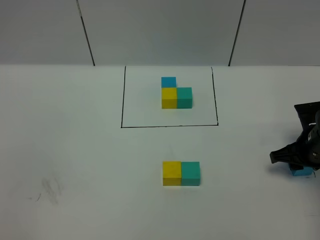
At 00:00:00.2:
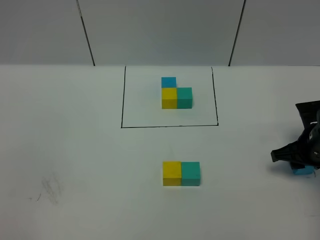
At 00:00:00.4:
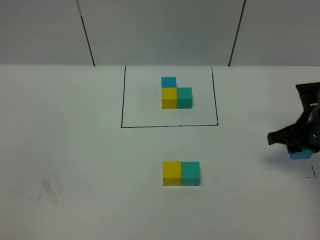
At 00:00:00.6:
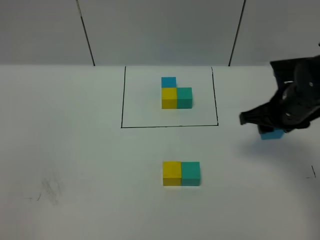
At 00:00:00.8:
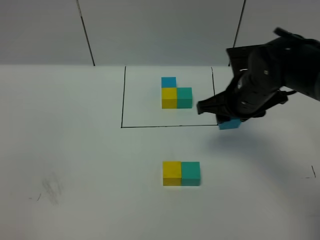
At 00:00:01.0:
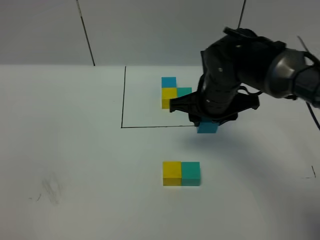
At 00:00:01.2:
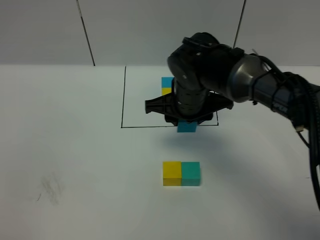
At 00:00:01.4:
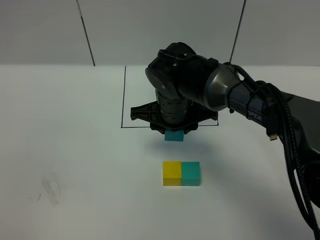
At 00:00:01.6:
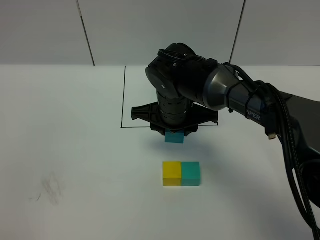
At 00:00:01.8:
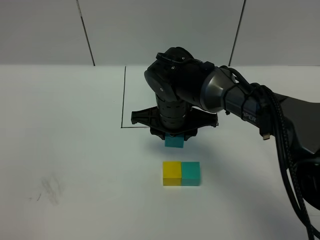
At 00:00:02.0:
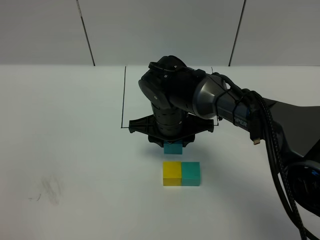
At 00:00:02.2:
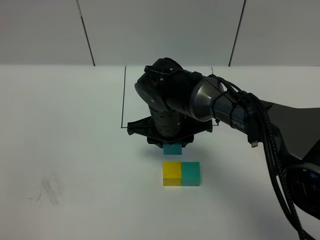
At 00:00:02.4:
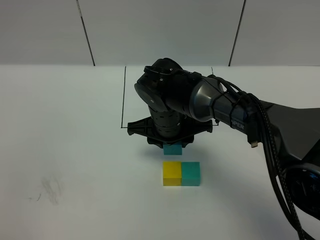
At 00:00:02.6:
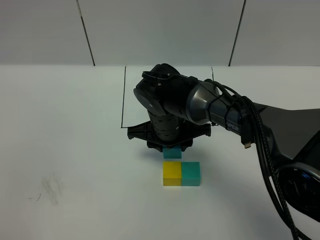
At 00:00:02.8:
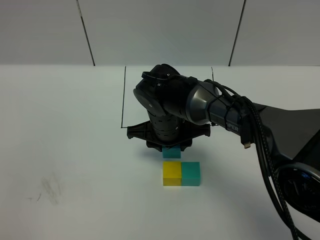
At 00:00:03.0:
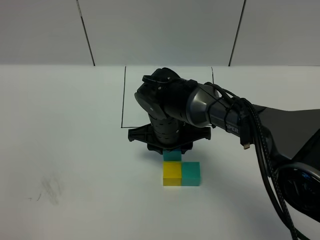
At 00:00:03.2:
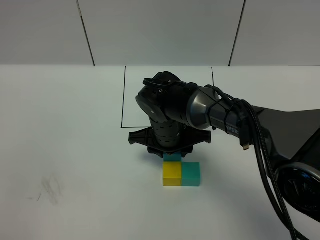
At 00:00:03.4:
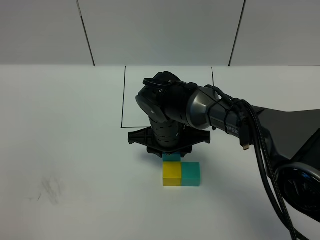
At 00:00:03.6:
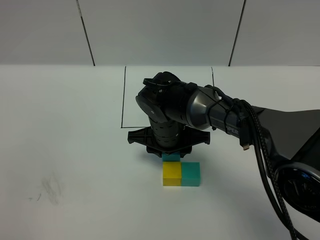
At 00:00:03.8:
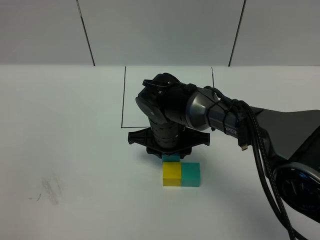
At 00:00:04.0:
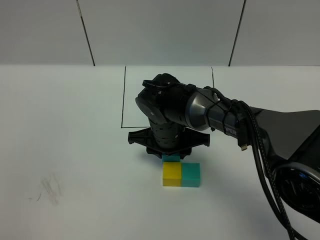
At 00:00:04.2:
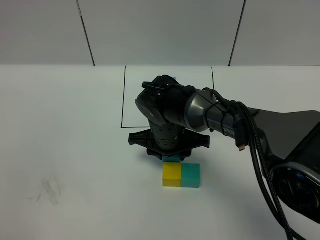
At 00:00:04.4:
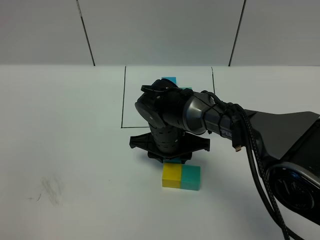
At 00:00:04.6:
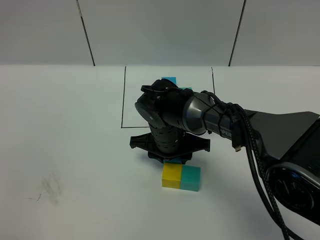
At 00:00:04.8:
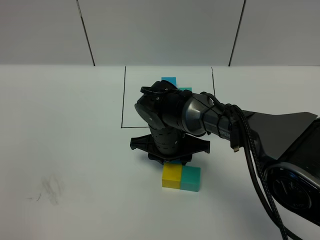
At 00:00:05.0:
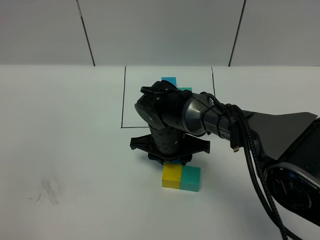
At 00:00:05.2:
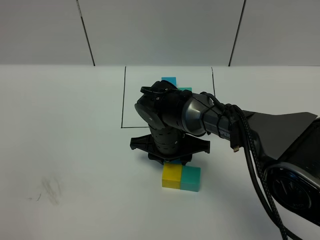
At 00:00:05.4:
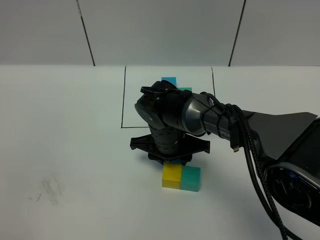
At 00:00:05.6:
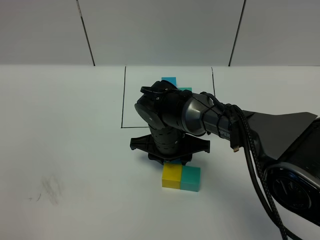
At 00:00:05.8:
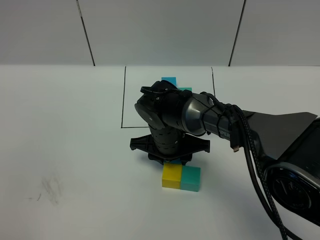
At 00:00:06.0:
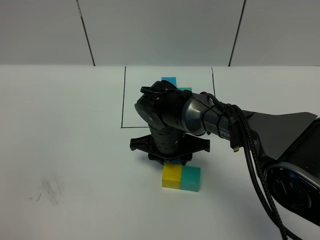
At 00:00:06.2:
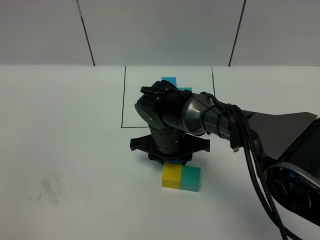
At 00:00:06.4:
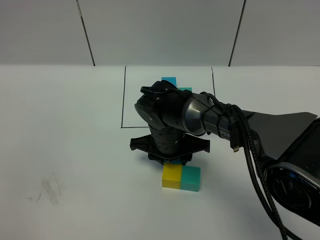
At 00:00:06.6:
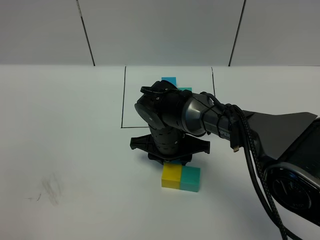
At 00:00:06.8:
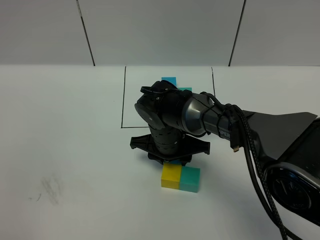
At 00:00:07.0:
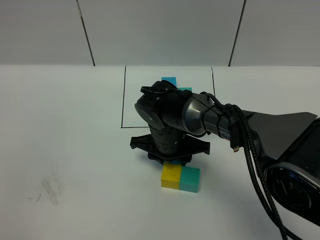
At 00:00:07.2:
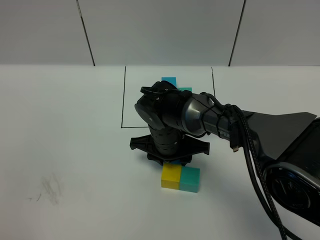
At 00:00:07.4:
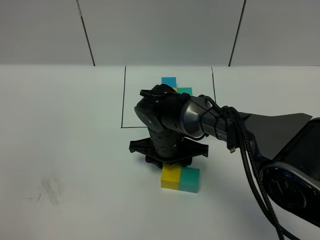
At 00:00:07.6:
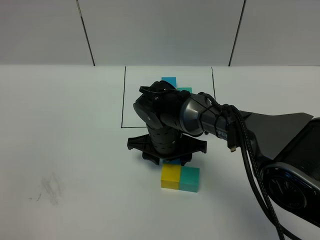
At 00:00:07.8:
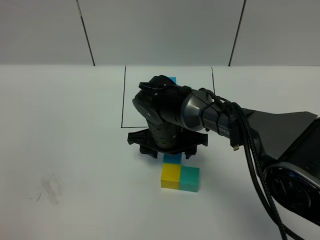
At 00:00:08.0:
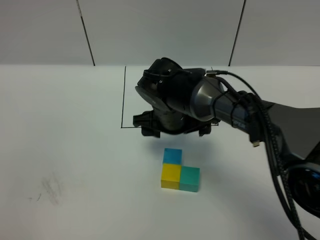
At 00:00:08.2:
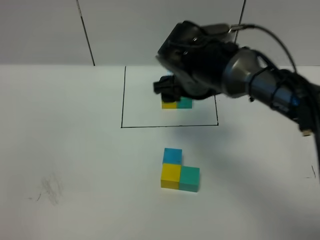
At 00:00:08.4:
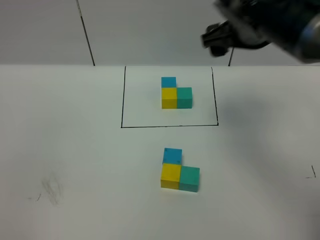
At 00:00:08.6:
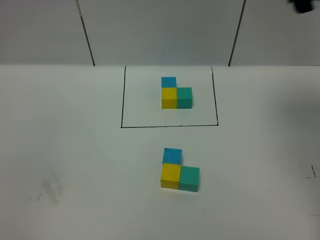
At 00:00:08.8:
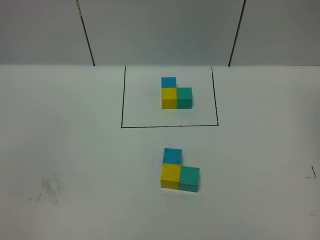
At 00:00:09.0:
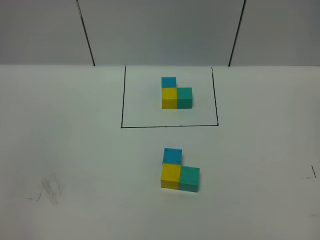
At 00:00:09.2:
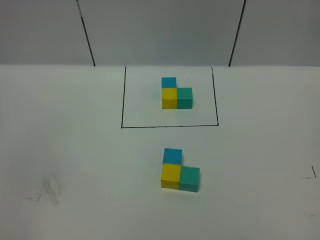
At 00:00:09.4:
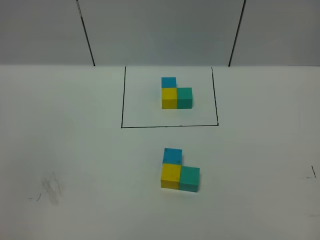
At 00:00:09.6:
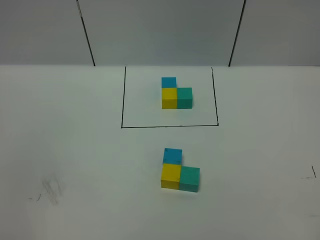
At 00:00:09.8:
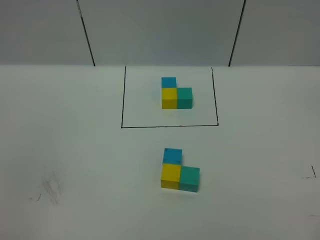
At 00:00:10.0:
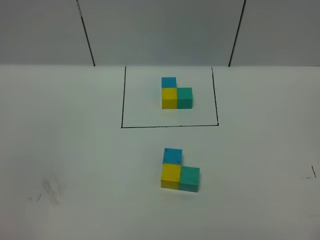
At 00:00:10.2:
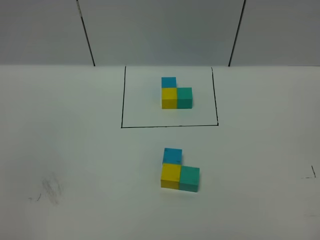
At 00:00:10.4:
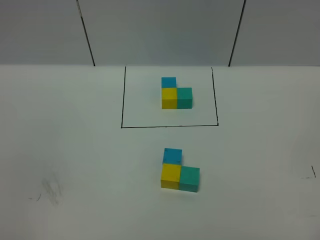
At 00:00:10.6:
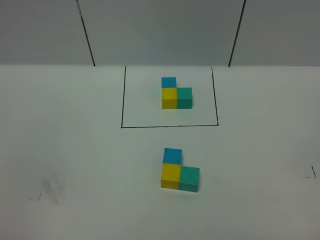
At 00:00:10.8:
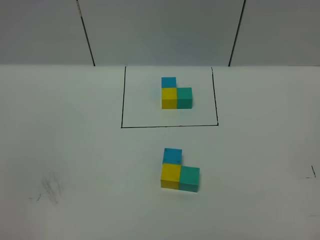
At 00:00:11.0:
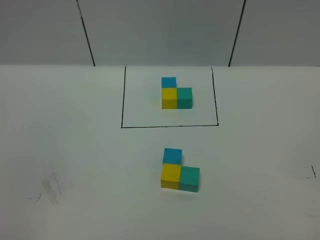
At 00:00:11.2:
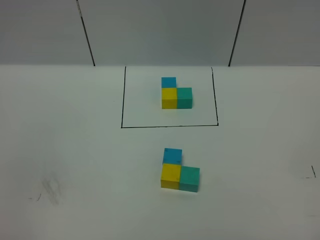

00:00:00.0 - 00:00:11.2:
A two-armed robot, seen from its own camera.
Task of the whole recording: According to the building block template in front, assemble the scattered blocks together.
Step, 00:00:00.0 - 00:00:07.8: Put the blue cube on the behind of the yellow cube.
00:00:00.0 - 00:00:01.6: The right gripper travels to the left by approximately 30 cm.
00:00:01.6 - 00:00:03.2: The right gripper ends up some 5 cm from where it was.
00:00:03.2 - 00:00:04.8: The grippers move only a little.
00:00:04.8 - 00:00:06.4: Both grippers stay about where they are.
00:00:06.4 - 00:00:08.0: The right gripper is displaced upward by roughly 5 cm, and opens up.
00:00:08.0 - 00:00:09.6: The right gripper shifts about 50 cm backward, to the right and upward.

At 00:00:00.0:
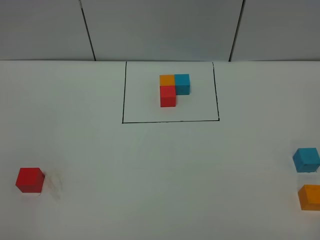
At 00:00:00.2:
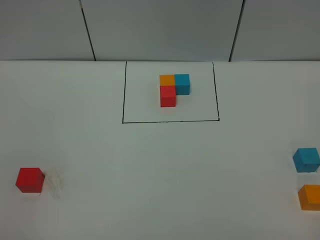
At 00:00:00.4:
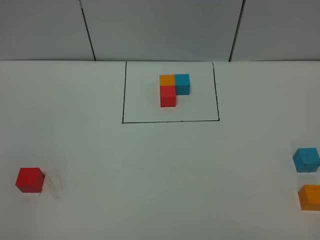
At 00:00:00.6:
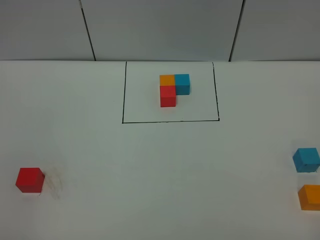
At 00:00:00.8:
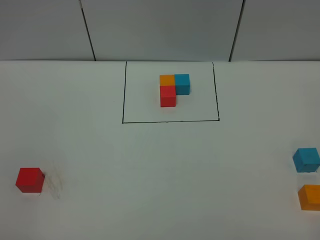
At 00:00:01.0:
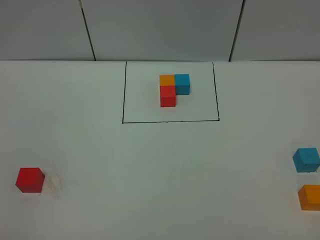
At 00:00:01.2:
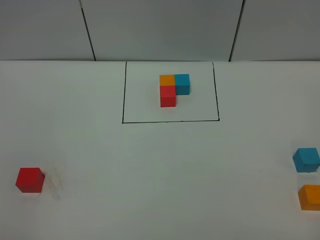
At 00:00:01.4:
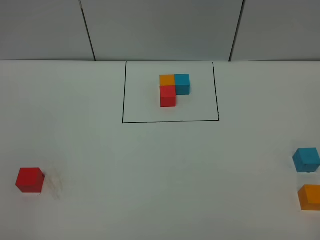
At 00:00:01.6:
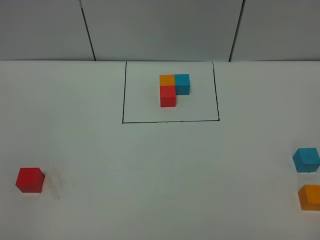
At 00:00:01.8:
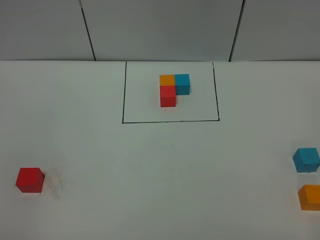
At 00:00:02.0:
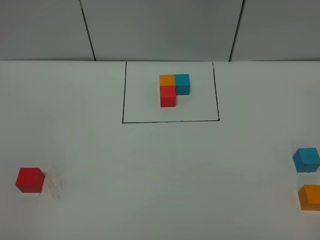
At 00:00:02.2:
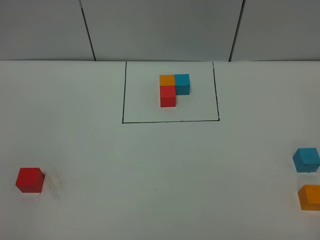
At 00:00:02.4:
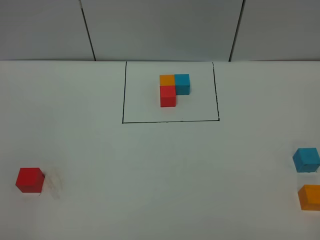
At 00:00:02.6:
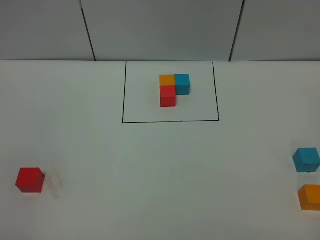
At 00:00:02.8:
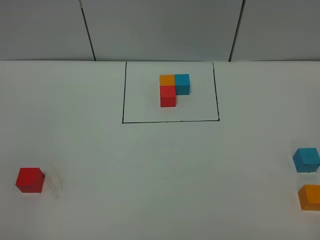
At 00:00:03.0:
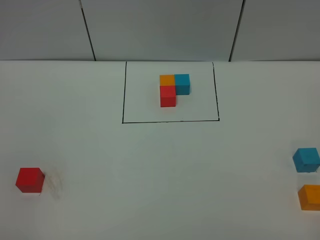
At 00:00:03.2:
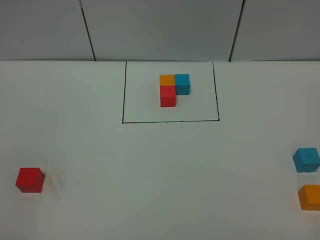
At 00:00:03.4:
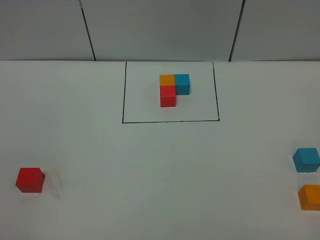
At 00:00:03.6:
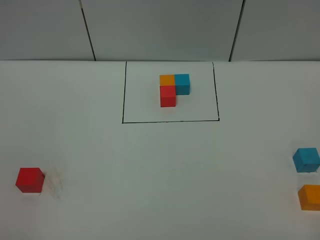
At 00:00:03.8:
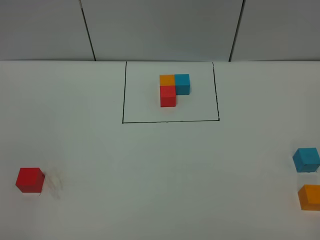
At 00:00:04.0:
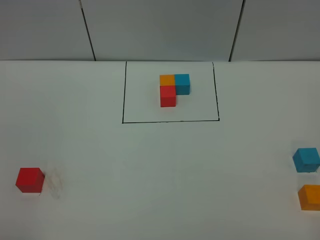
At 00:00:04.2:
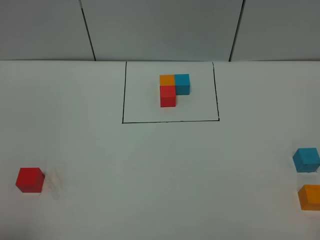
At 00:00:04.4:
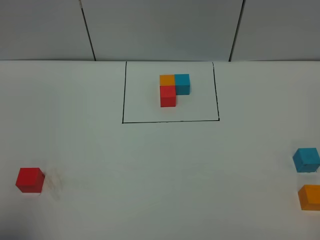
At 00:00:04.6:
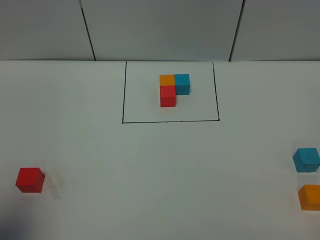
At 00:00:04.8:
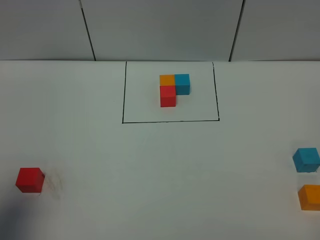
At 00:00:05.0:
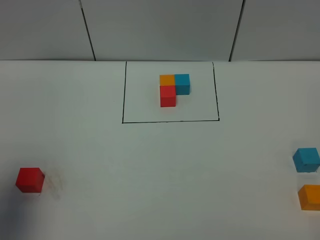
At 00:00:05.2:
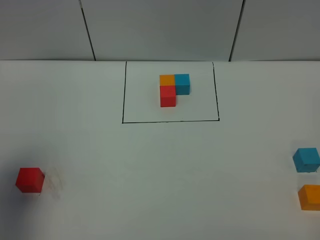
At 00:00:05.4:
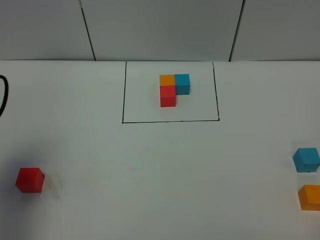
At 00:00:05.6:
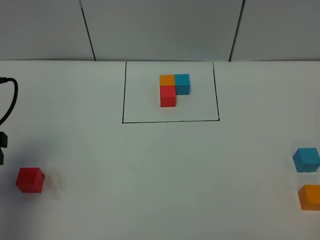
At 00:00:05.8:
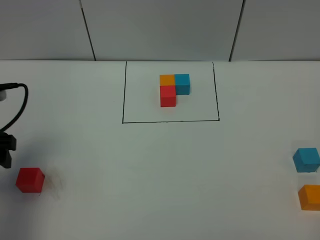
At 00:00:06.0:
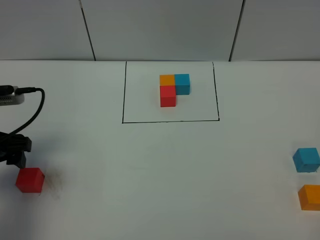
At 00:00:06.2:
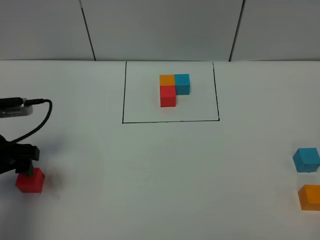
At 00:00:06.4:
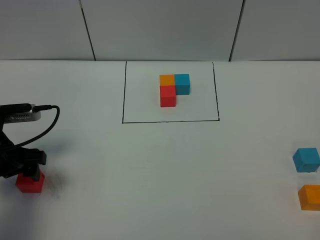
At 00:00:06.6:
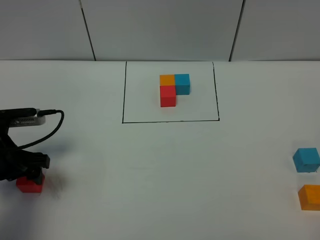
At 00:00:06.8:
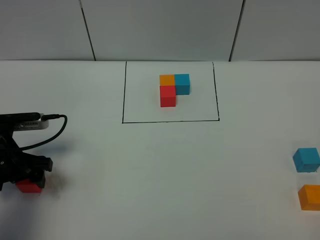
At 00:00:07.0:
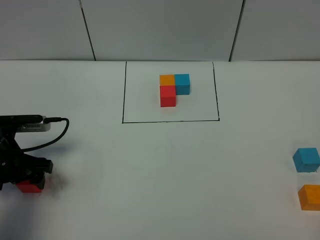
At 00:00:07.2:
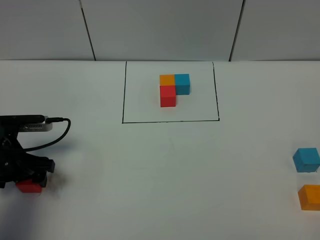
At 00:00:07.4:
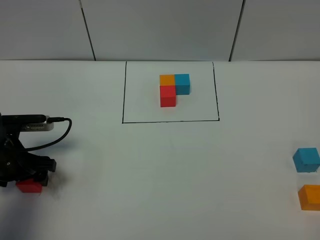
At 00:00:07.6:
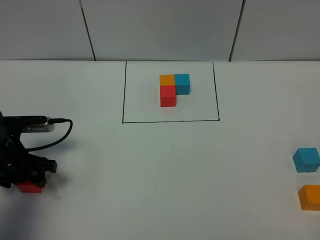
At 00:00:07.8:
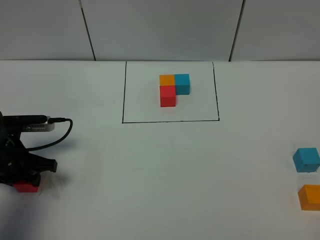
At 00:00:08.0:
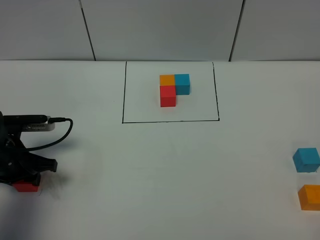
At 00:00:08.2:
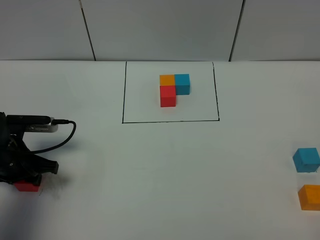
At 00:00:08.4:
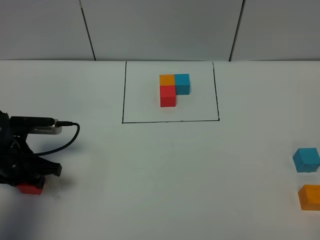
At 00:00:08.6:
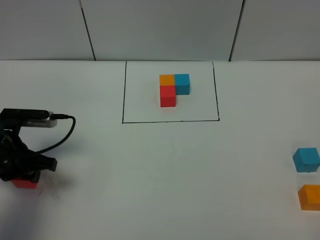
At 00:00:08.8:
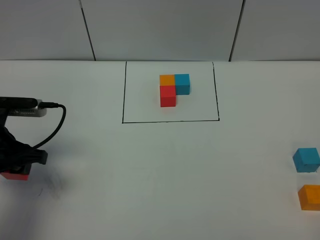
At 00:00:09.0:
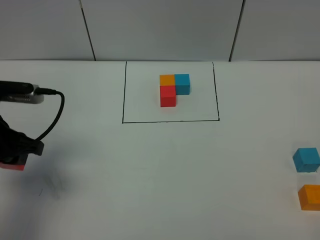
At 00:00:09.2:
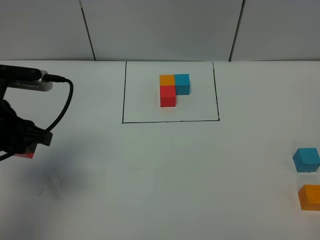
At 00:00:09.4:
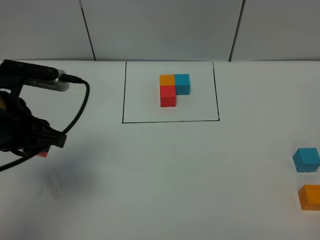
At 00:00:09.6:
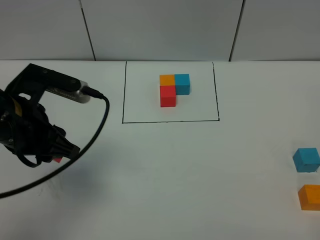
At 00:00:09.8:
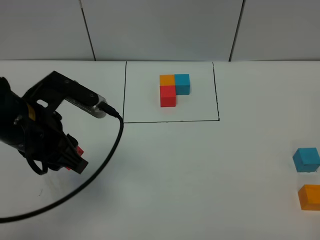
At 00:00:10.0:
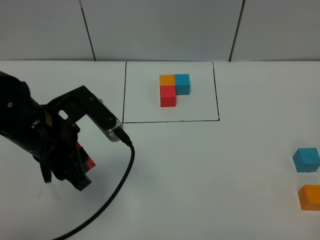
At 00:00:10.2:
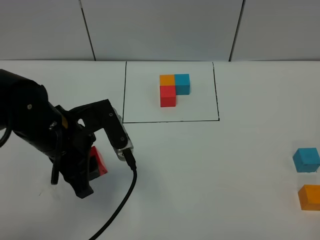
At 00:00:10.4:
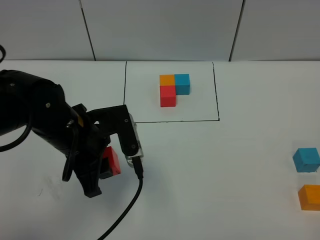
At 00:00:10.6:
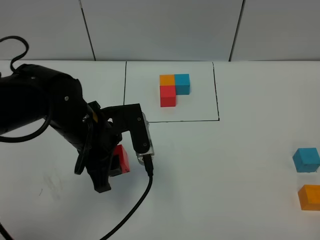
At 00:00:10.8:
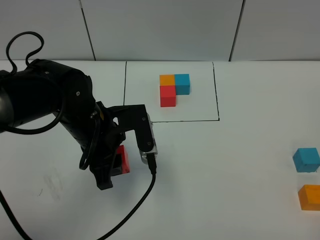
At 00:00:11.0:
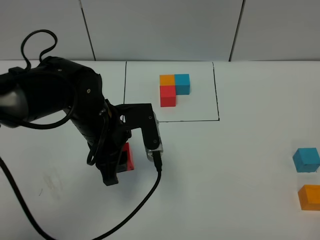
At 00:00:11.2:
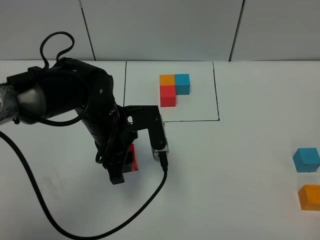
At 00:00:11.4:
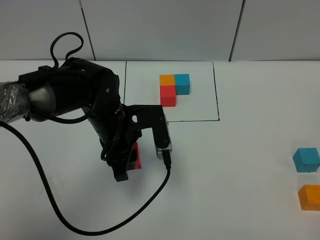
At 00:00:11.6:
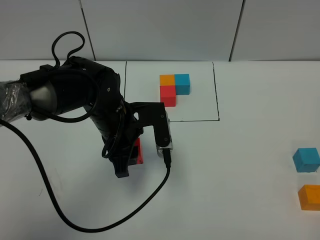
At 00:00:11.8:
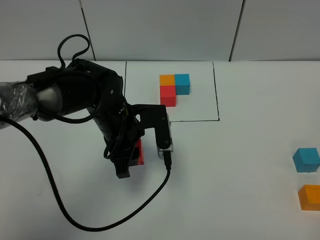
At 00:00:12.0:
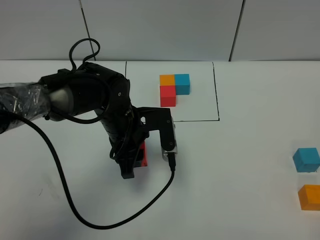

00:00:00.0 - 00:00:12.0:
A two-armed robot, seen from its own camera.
Task of the whole recording: According to the building block template in front, assemble the scattered blocks together.
00:00:00.0 - 00:00:03.0: Both grippers stay put.
00:00:03.0 - 00:00:04.4: The left gripper shifts about 10 cm upward and forward, and opens up.
00:00:04.4 - 00:00:06.0: The left gripper moves forward and downward, about 25 cm.
00:00:06.0 - 00:00:07.6: The left gripper heads downward, covering about 10 cm.
00:00:07.6 - 00:00:09.0: The left gripper goes approximately 15 cm upward.
00:00:09.0 - 00:00:10.4: The left gripper moves to the right, approximately 15 cm.
00:00:10.4 - 00:00:12.0: The left gripper goes about 10 cm forward, to the right and downward.
